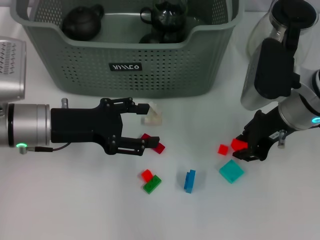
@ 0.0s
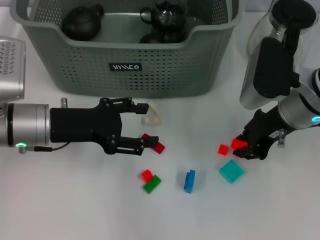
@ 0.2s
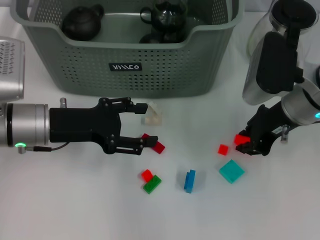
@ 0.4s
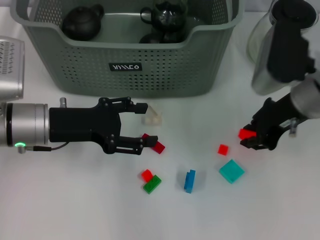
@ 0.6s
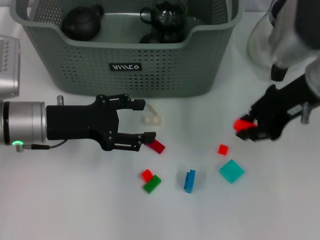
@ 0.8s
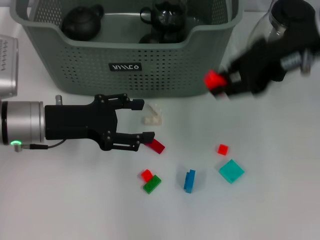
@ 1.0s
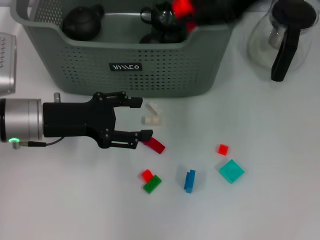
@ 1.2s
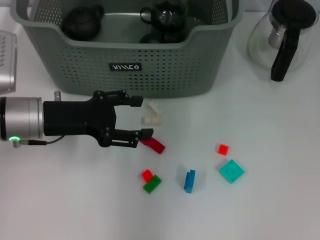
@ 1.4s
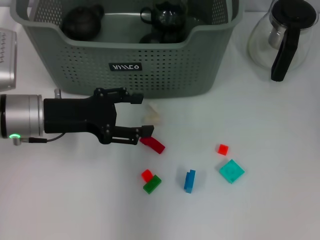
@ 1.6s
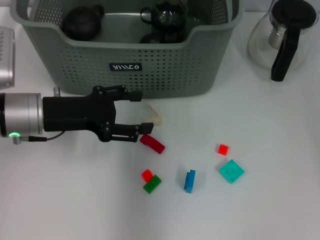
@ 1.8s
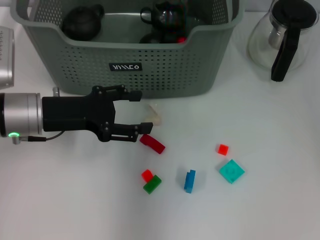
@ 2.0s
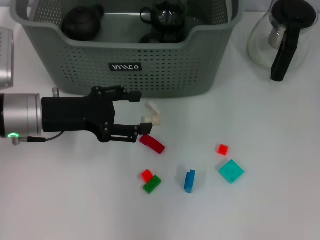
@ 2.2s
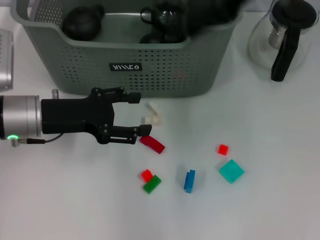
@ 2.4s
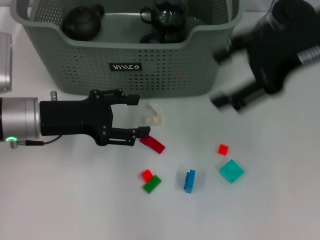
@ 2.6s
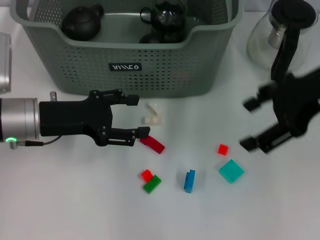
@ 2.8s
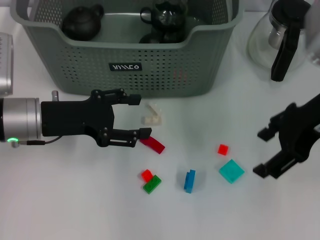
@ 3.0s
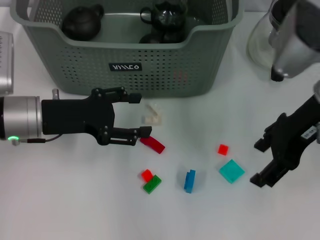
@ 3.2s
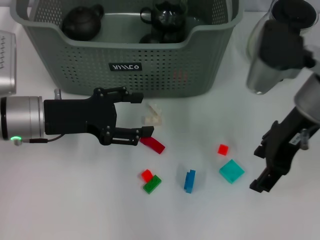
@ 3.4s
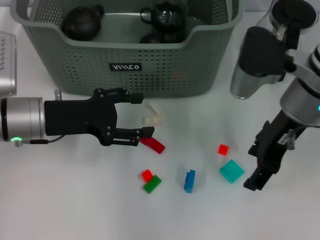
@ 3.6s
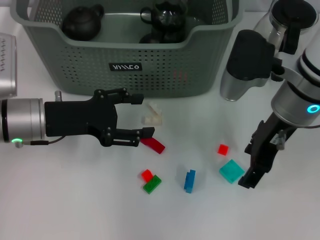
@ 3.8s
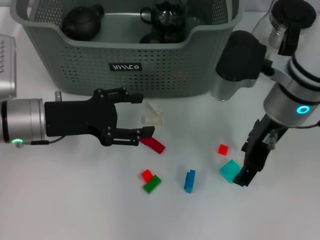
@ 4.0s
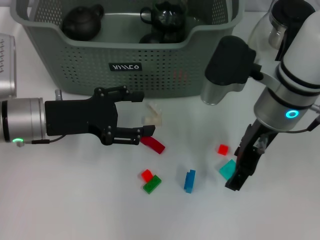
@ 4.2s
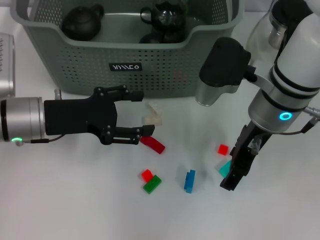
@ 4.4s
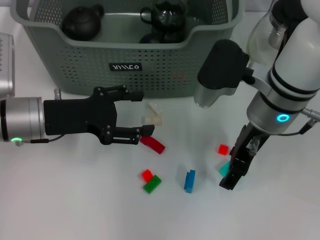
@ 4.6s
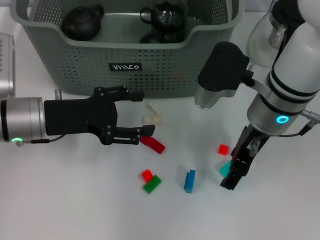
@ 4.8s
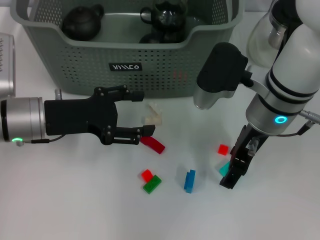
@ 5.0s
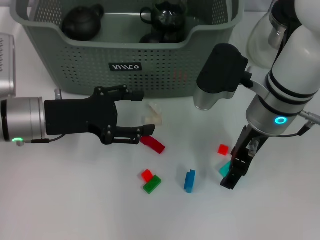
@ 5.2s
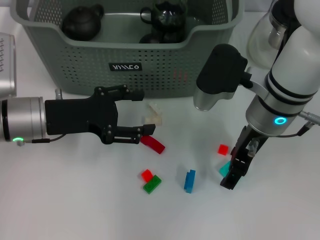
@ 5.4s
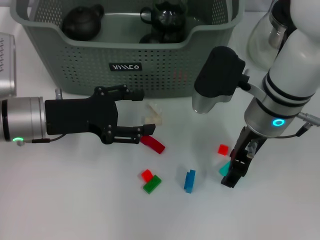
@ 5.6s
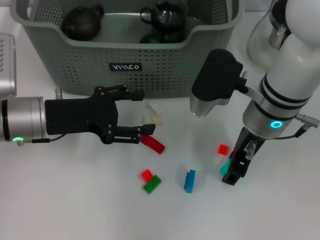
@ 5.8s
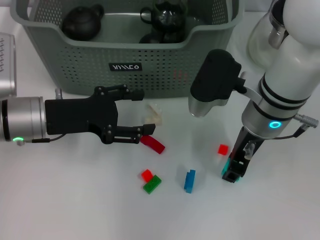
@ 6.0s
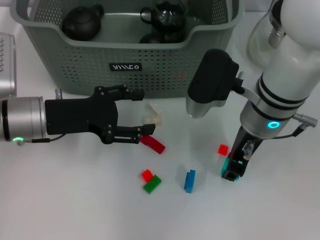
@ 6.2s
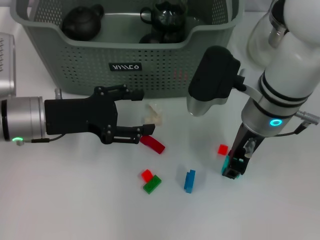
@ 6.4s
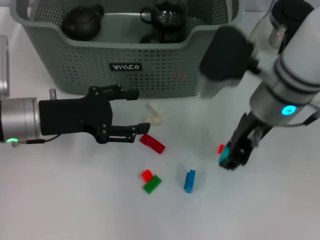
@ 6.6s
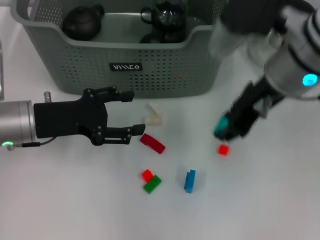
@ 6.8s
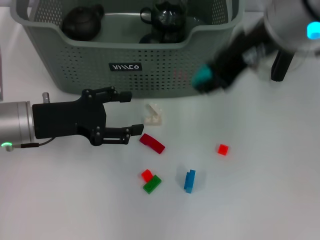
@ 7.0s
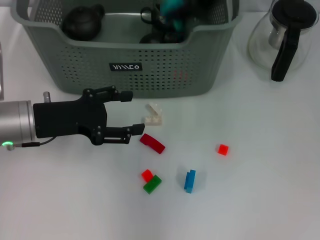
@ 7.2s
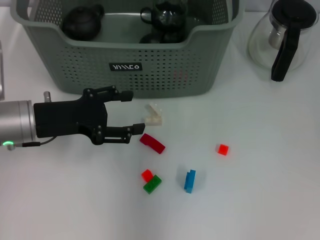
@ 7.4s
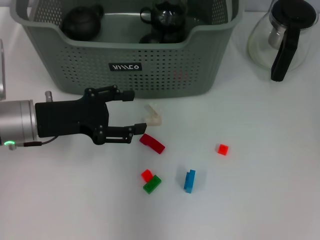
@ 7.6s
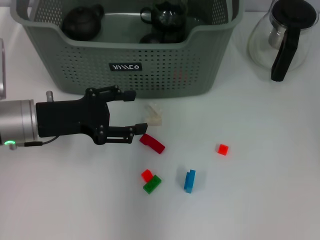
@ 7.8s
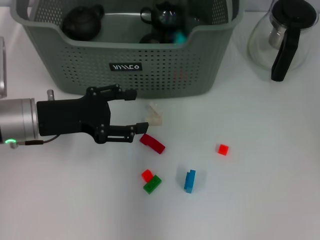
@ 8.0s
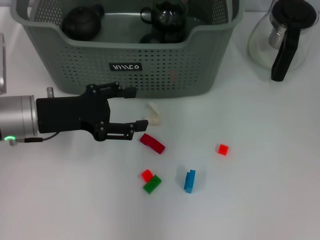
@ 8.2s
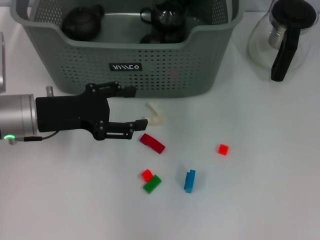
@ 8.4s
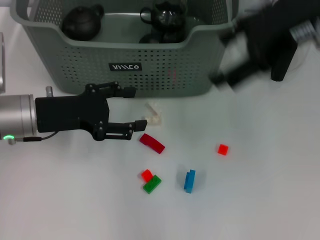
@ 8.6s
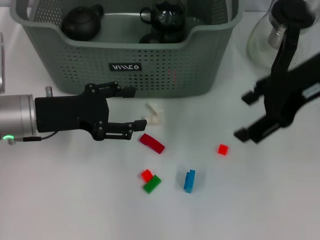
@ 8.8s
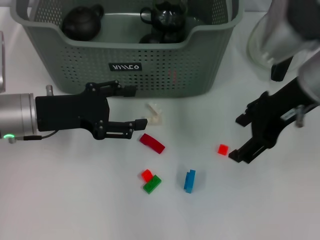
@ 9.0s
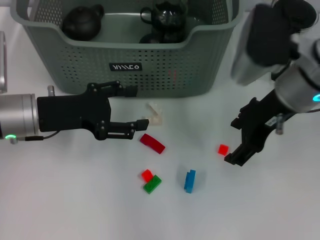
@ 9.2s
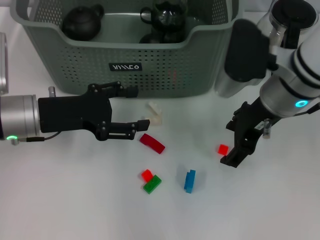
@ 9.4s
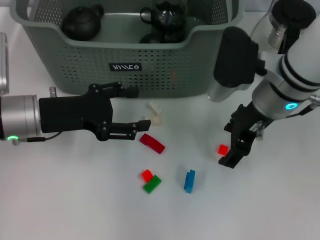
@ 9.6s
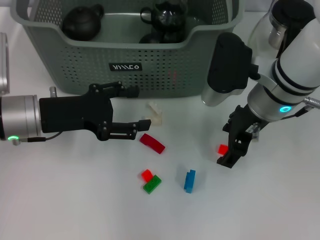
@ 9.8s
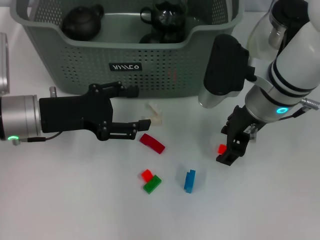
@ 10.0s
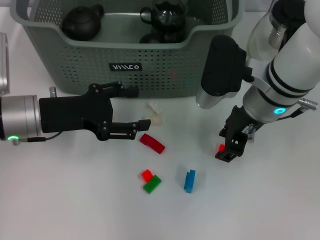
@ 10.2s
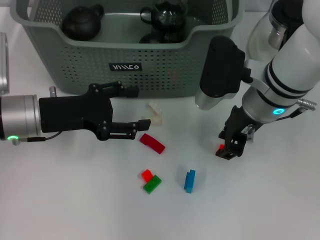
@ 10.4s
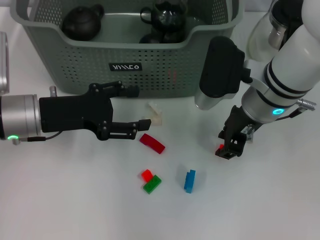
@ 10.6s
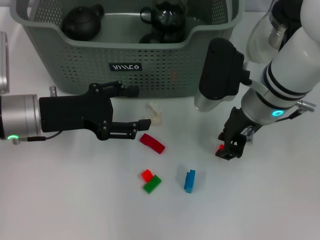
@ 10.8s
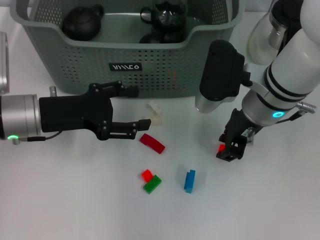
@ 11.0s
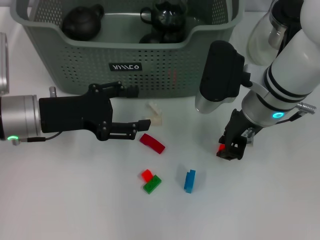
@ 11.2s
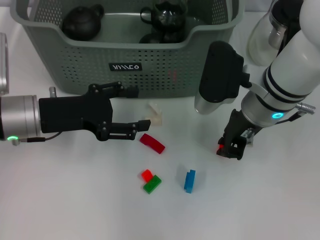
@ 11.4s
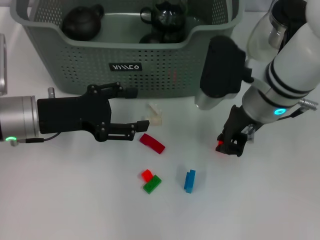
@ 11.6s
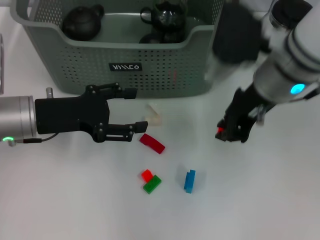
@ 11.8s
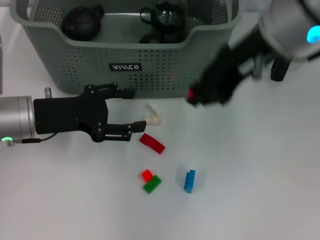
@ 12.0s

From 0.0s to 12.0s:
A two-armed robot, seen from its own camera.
Task of the whole recording: pick up the teacup on the table and place it into the storage bin, pick up the block on the table and place it into the storage bin.
Step, from 0.2s to 2.0s: Place the orange block in the storage box with right gripper.
Step, from 2.4s to 6.2s: Grasp the light blue block with right gripper.
Step, from 6.4s to 8.2s: Place the light blue block in the storage box with right gripper.
From 0.0s to 1.6s: The right gripper shifts about 20 cm upward and forward.
From 1.6s to 3.0s: The right gripper travels backward, to the right and downward by approximately 20 cm, and opens.
From 3.0s to 4.4s: The right gripper heads to the left and downward, covering about 10 cm.
From 4.4s to 6.0s: There are only small adjustments of the grippers.
From 6.0s to 7.6s: The right gripper moves upward and forward, about 20 cm.
From 7.6s to 9.0s: The right gripper shifts about 15 cm downward, backward and to the right, and opens.
From 9.0s to 10.4s: The right gripper goes approximately 10 cm downward and to the left, and closes its fingers.
From 10.4s to 12.0s: The right gripper goes roughly 15 cm upward, and closes up.

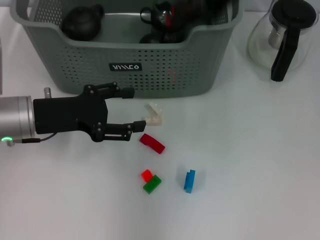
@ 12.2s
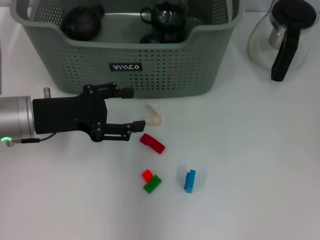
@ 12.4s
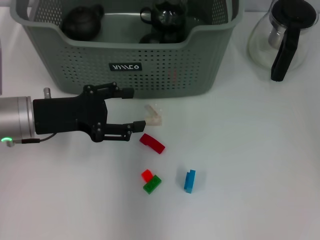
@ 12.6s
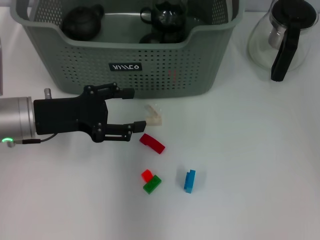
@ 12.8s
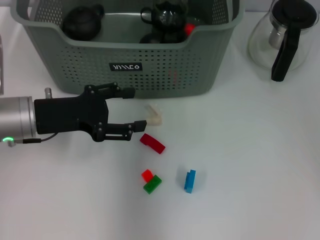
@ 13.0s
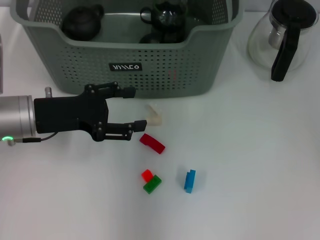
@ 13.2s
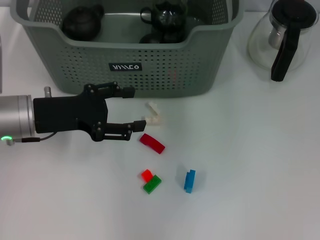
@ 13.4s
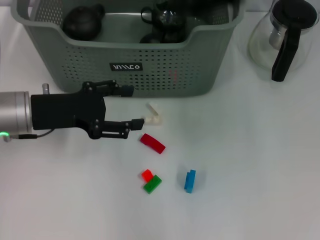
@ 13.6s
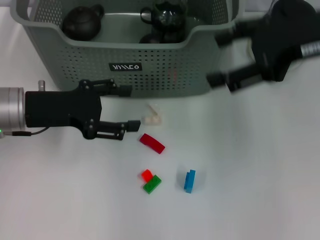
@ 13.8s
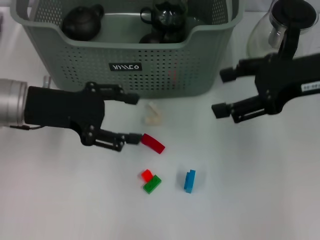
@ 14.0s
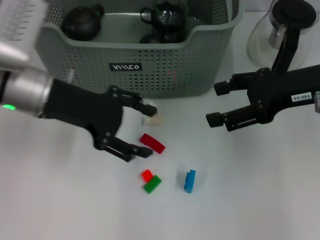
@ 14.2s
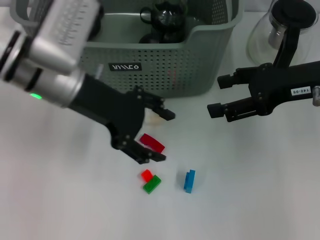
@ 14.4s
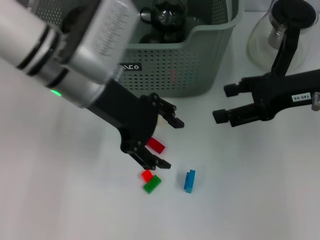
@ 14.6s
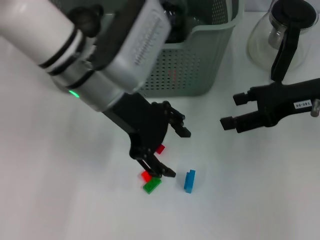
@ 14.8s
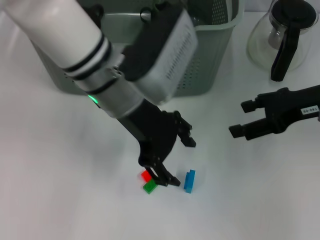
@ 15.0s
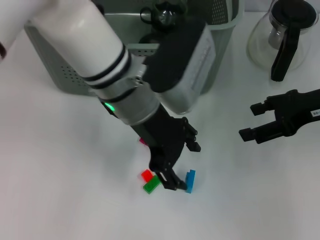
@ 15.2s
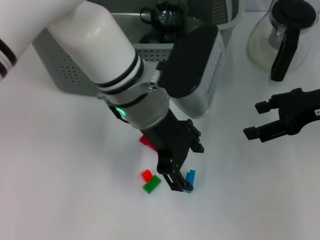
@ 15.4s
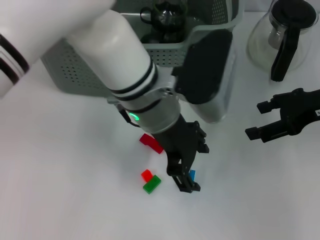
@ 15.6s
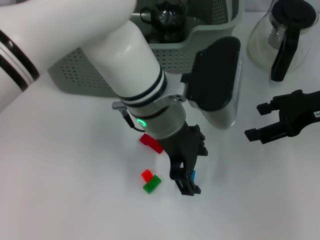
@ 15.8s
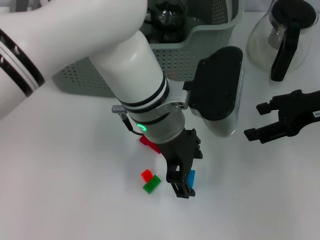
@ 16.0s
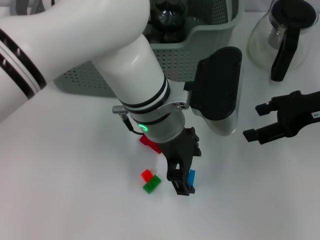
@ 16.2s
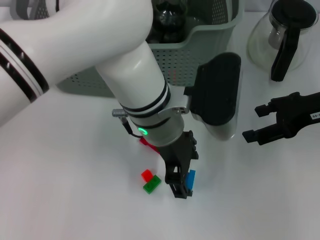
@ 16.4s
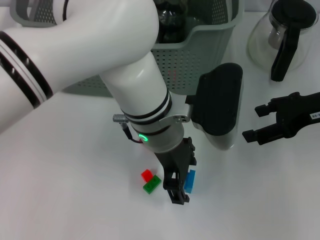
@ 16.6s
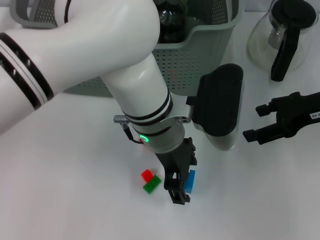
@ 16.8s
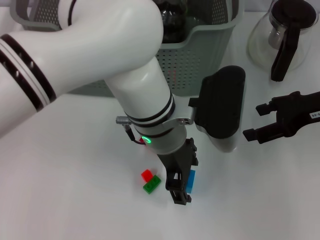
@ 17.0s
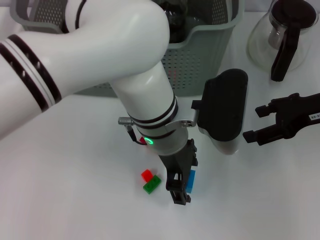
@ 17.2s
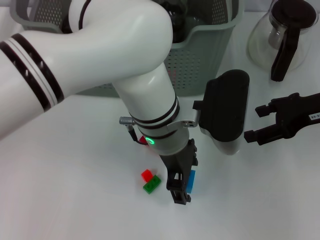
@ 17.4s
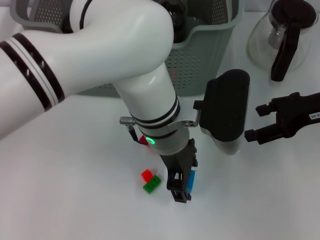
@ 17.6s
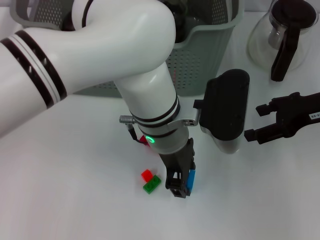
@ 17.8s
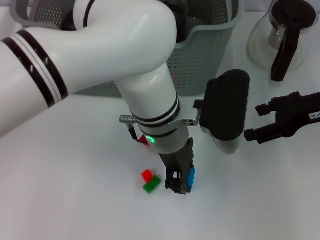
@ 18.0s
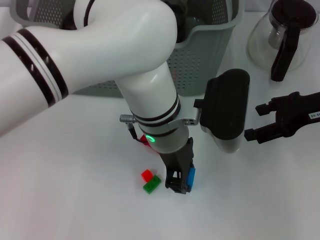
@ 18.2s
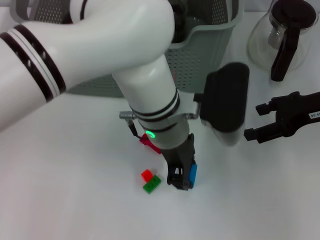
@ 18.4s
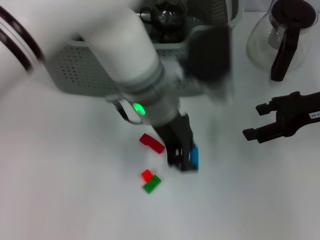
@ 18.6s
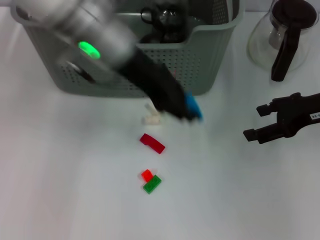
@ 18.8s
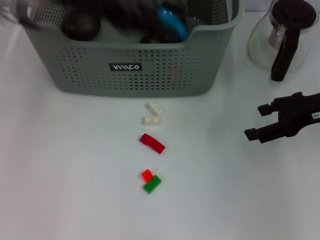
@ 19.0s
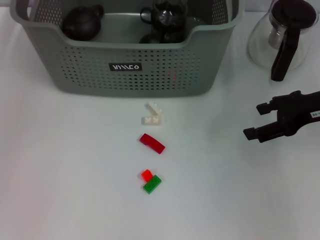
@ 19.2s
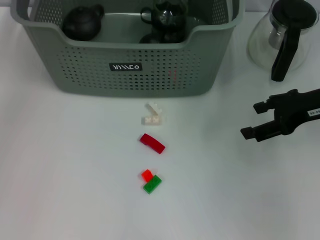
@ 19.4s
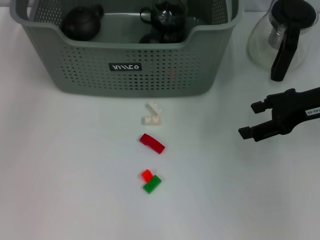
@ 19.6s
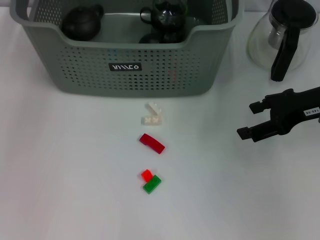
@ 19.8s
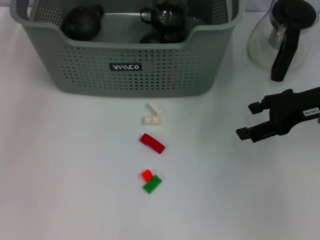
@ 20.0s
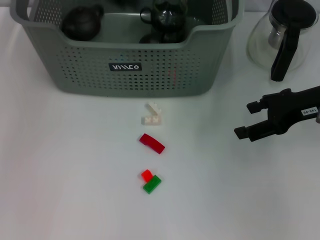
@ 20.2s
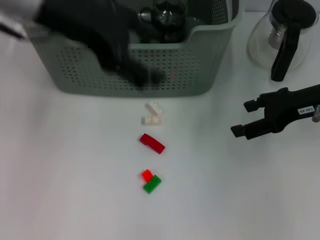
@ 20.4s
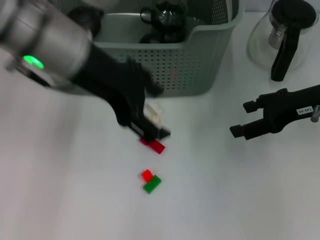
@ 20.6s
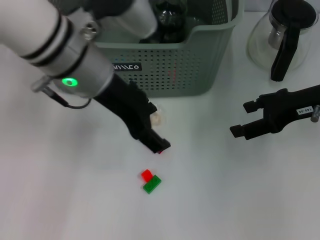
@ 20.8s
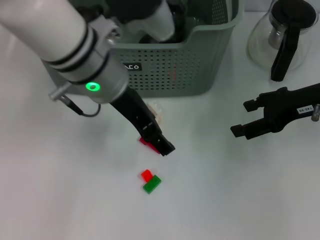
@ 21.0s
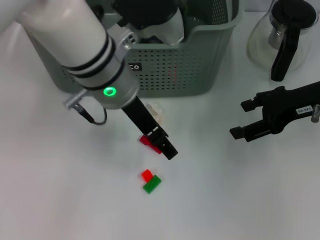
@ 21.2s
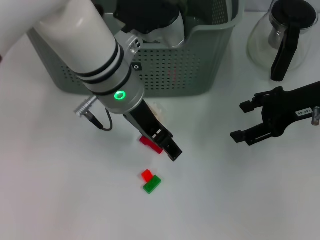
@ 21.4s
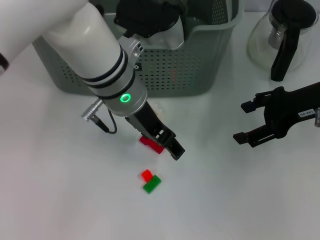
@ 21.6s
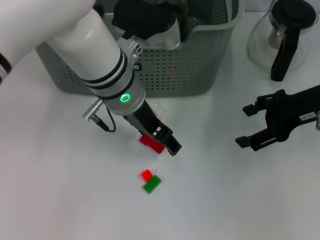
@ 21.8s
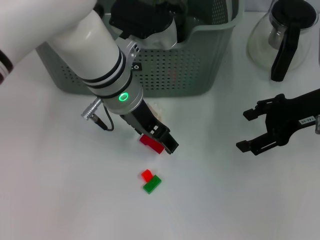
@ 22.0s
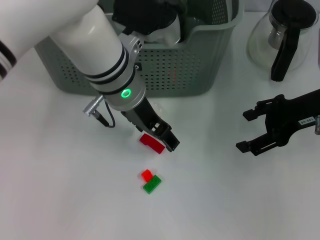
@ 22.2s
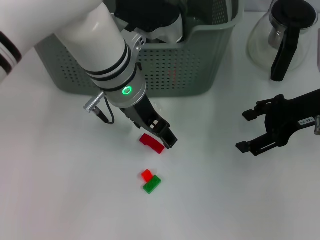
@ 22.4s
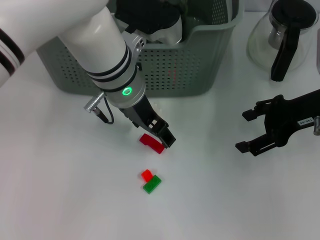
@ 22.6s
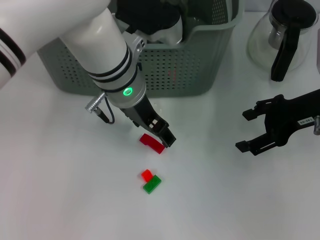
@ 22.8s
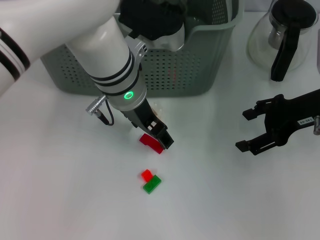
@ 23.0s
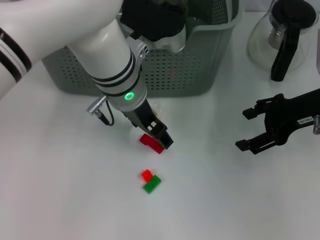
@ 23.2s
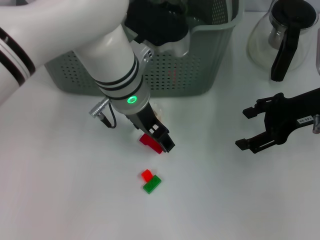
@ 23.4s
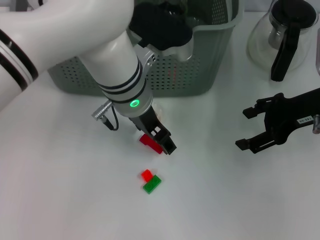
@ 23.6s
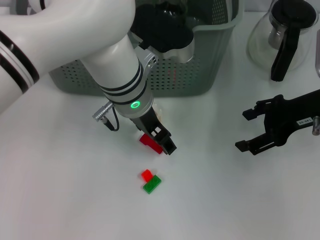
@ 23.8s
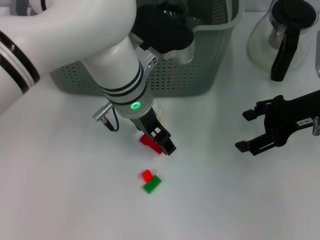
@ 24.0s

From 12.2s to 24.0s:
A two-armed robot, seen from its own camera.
Task of the whole recording: pick up the teacup on the table and place it into the storage bin, pick up the block on the table and place it into the storage bin.
Step, from 13.4s to 18.2s: Grasp the dark blue block with left gripper.
Step, from 18.4s to 20.0s: Place the dark blue block in the storage box with left gripper.
From 12.2s to 13.6s: The right gripper travels to the right by roughly 5 cm, goes forward and returns, roughly 10 cm each way, and opens.
From 13.6s to 15.2s: The right gripper shifts some 15 cm downward and to the right. The left gripper goes some 20 cm to the right and upward.
From 15.2s to 16.6s: The left gripper changes place by approximately 5 cm.
From 16.6s to 18.2s: The left gripper closes up.
From 18.2s to 19.6s: The left gripper travels to the left, forward and upward by approximately 30 cm.
From 19.6s to 21.0s: The left gripper travels to the right, backward and downward by about 20 cm, and opens.
From 21.0s to 22.6s: The left gripper changes place by roughly 5 cm.
From 22.6s to 24.0s: There are only small adjustments of the grippers.
